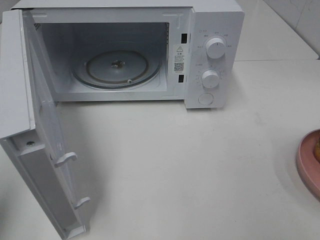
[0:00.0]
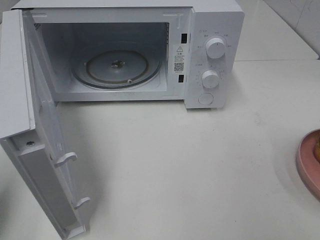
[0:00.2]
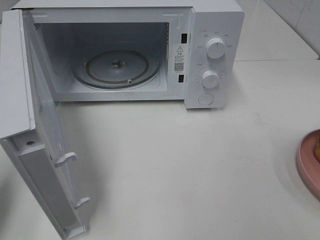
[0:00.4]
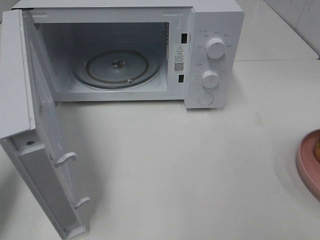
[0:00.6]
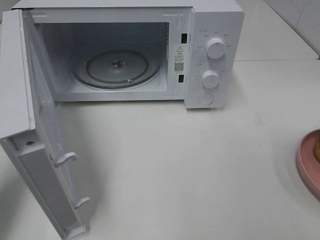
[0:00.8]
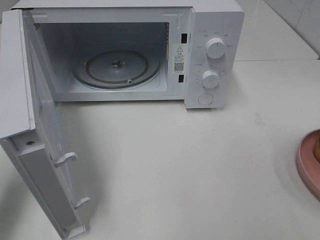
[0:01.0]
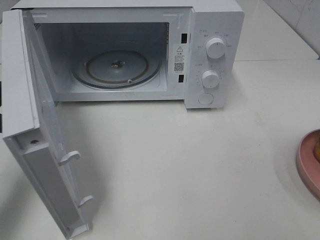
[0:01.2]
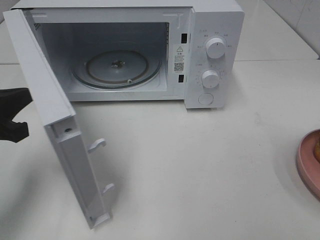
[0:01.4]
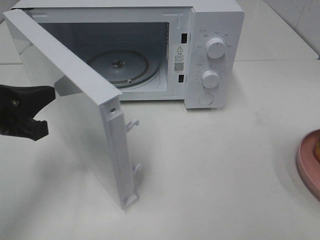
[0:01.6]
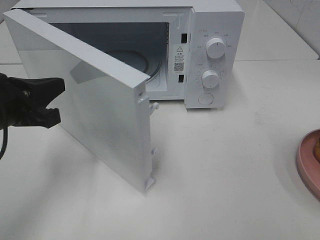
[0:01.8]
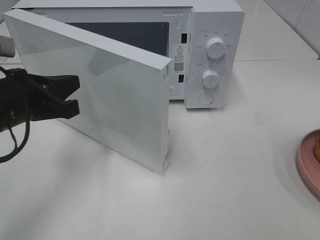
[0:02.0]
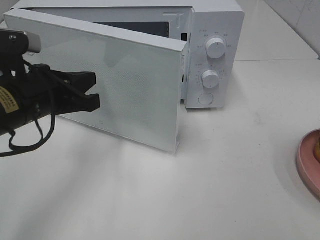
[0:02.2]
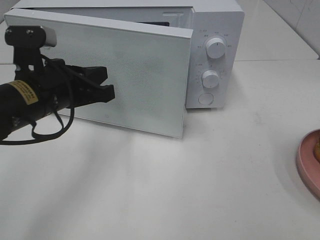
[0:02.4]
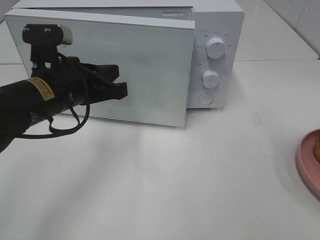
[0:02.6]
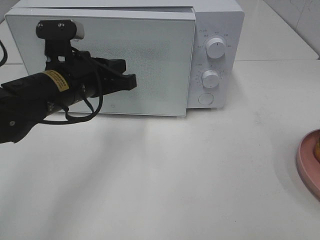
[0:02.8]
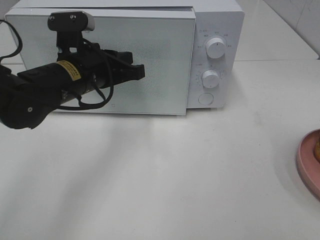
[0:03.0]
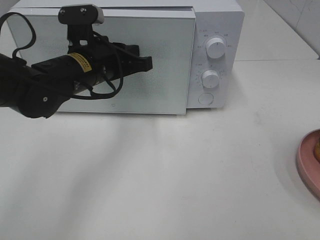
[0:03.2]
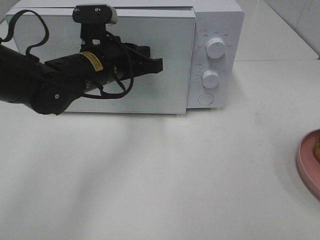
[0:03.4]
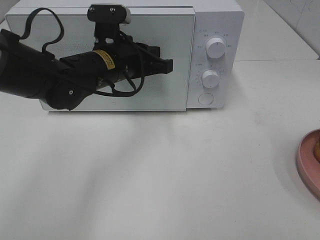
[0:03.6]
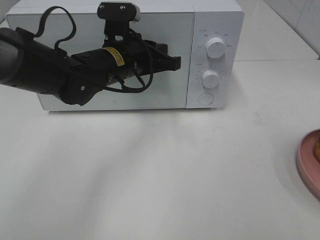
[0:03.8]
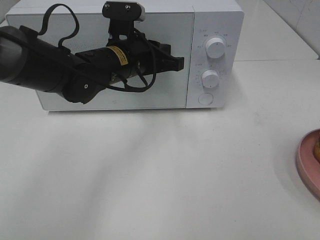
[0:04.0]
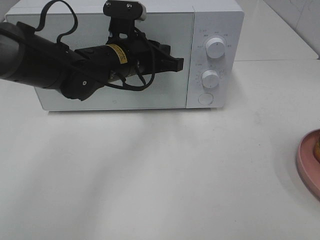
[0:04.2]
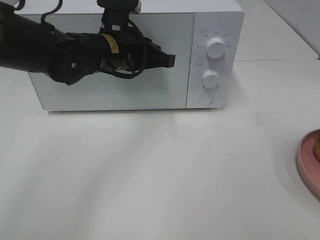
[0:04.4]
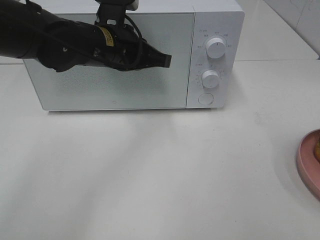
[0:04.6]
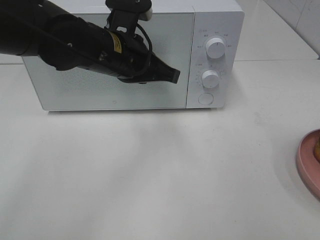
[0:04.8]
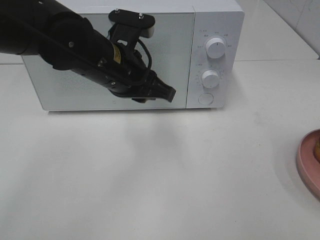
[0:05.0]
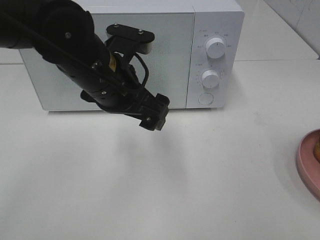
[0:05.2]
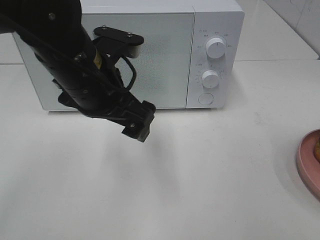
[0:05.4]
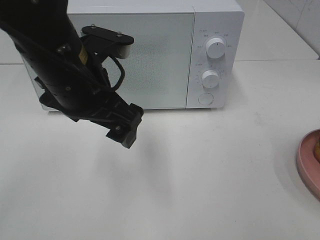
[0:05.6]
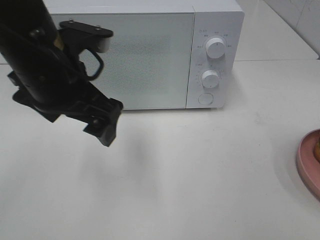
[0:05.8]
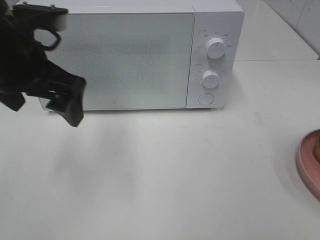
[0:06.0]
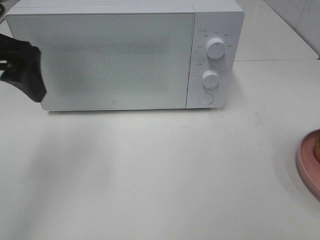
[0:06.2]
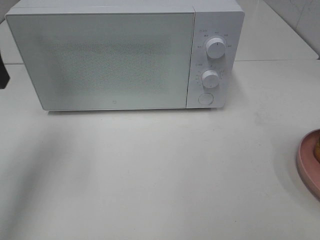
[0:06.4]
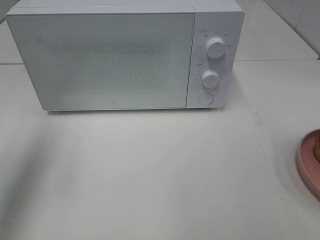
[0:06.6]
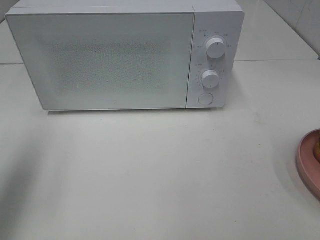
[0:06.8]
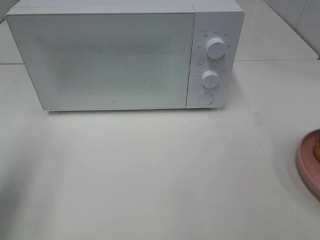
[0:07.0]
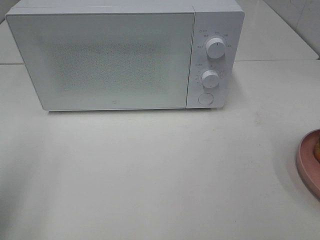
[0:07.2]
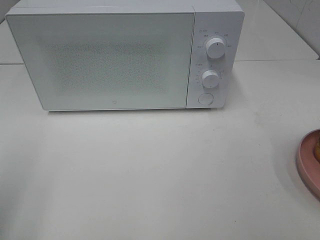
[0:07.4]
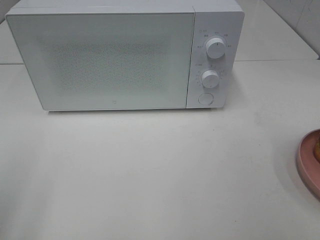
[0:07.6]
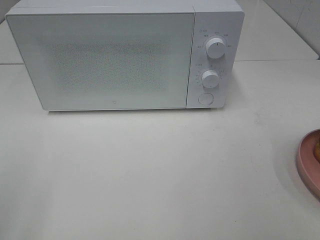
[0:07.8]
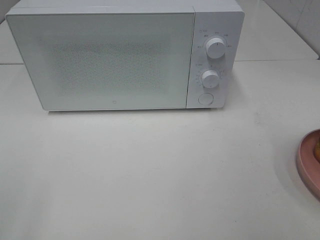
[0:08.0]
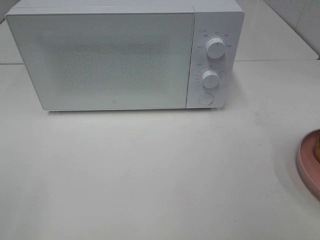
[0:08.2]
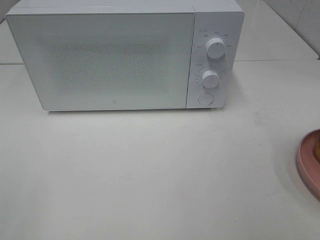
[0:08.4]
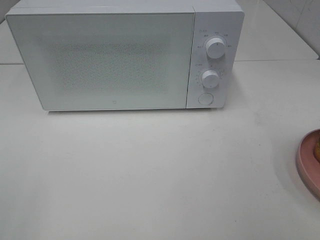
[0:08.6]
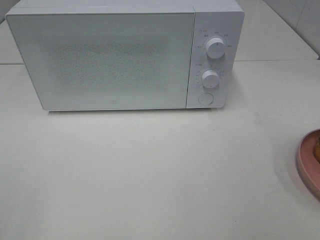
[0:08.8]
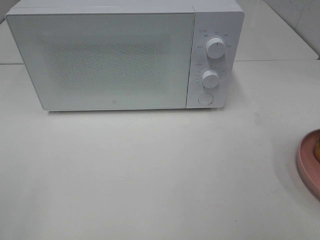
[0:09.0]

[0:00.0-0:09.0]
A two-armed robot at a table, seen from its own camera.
Task of the whole recording: Heat the burger.
Step, 0:00.0 to 0:04.4: Left hand: close the microwave door.
0:00.0 to 0:01.6: The left gripper shifts some 15 cm forward, downward and to the right.
0:01.6 to 0:03.0: The left gripper goes roughly 15 cm to the right and forward.
0:03.0 to 0:04.4: The left gripper ends up roughly 5 cm from where it was.
0:04.4 to 0:06.0: The left gripper goes some 15 cm to the left, backward and upward, and opens.
0:06.0 to 0:07.6: The left gripper travels backward and to the left by approximately 25 cm.

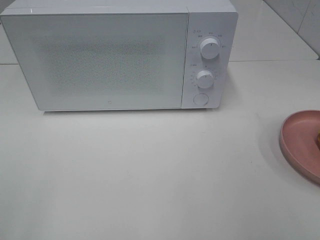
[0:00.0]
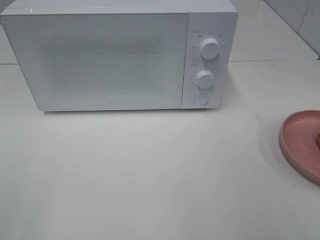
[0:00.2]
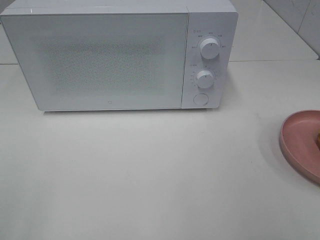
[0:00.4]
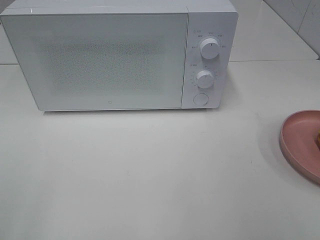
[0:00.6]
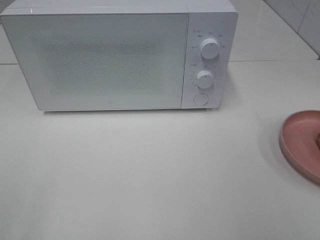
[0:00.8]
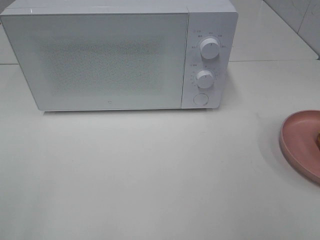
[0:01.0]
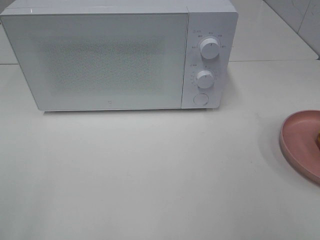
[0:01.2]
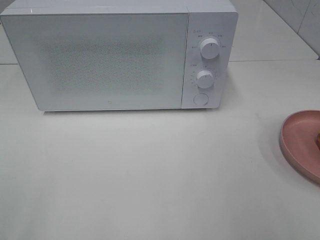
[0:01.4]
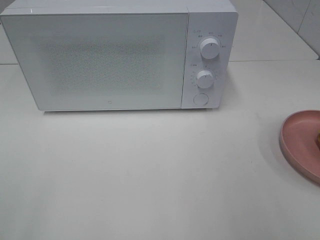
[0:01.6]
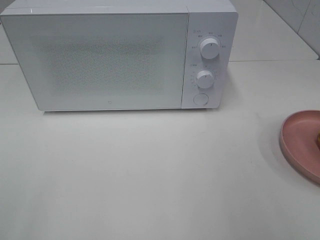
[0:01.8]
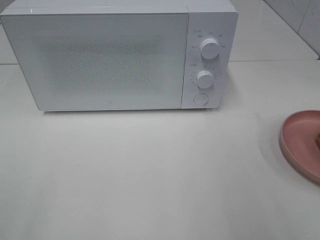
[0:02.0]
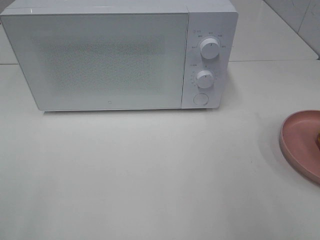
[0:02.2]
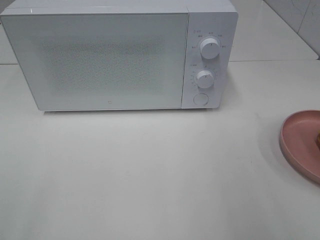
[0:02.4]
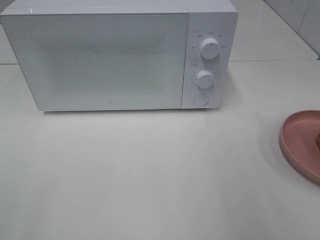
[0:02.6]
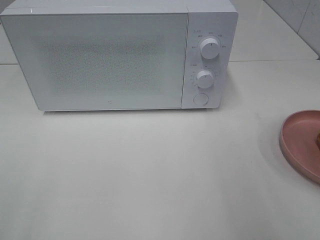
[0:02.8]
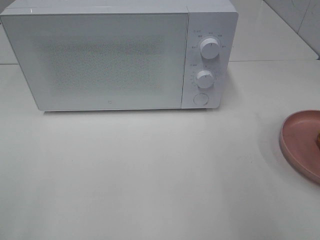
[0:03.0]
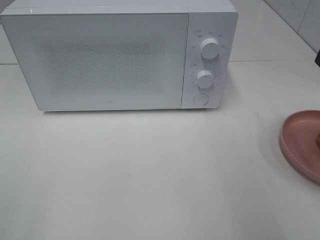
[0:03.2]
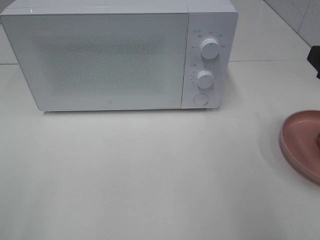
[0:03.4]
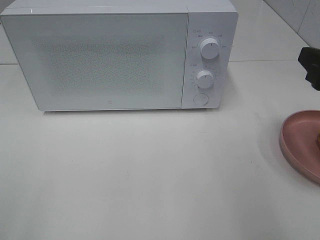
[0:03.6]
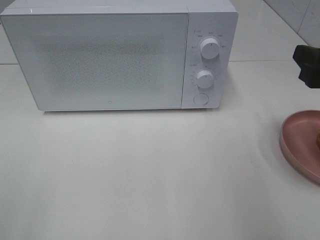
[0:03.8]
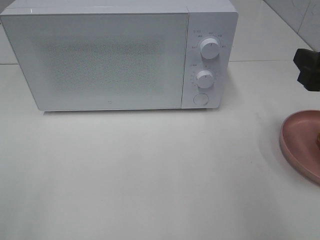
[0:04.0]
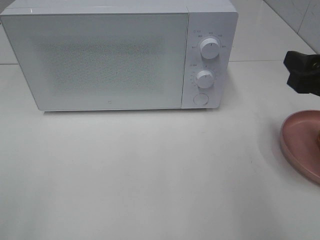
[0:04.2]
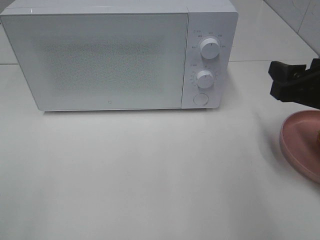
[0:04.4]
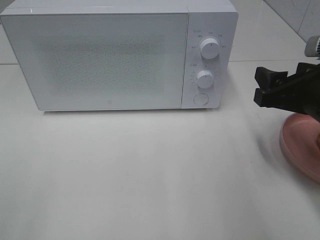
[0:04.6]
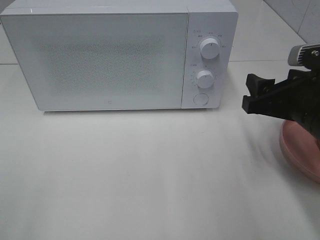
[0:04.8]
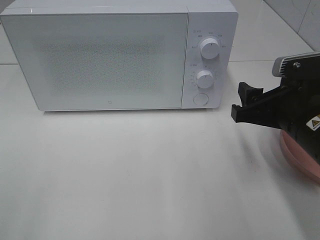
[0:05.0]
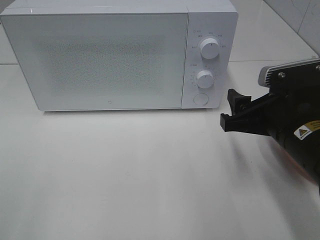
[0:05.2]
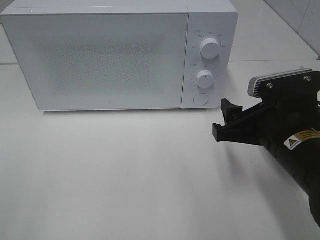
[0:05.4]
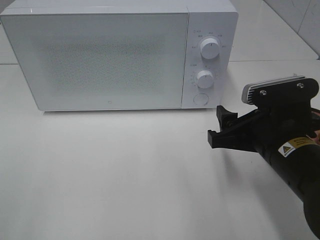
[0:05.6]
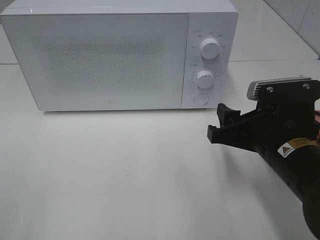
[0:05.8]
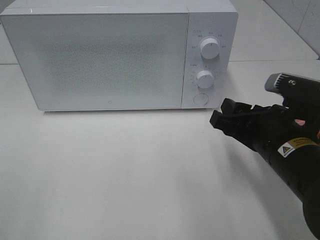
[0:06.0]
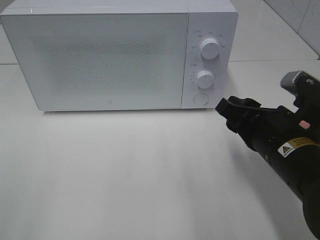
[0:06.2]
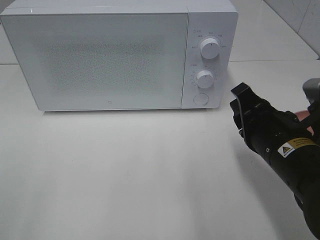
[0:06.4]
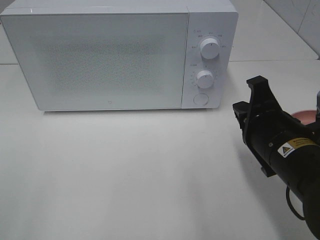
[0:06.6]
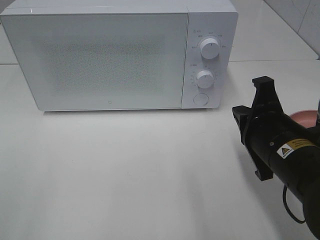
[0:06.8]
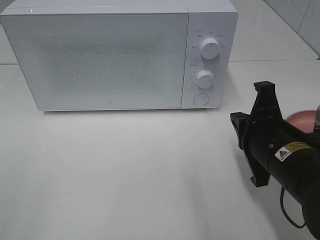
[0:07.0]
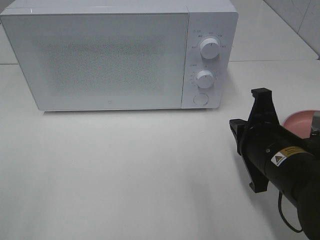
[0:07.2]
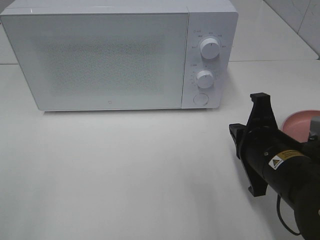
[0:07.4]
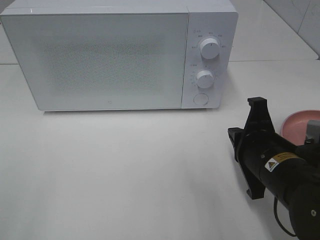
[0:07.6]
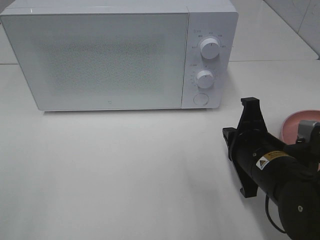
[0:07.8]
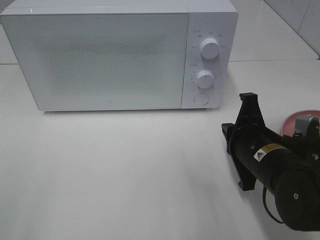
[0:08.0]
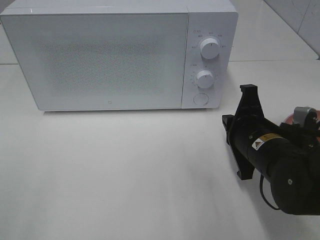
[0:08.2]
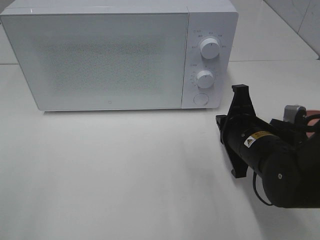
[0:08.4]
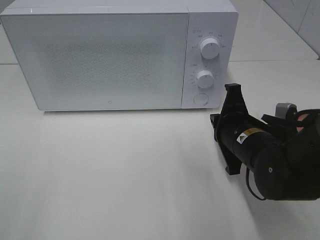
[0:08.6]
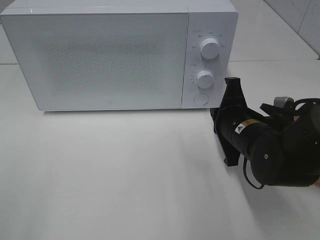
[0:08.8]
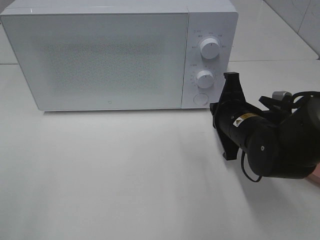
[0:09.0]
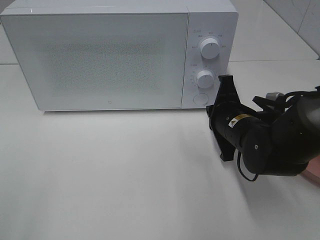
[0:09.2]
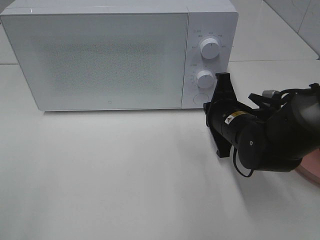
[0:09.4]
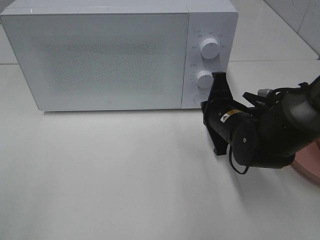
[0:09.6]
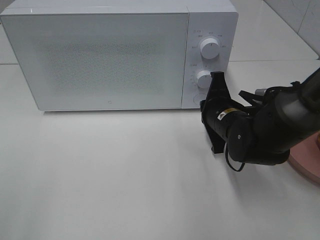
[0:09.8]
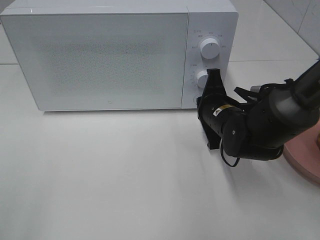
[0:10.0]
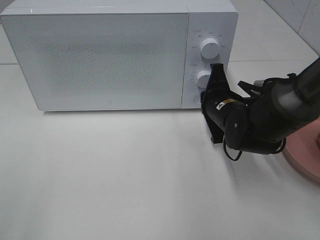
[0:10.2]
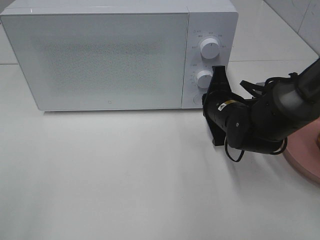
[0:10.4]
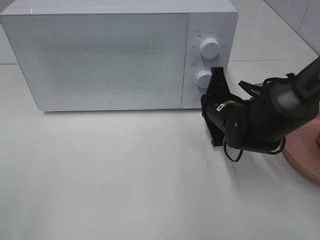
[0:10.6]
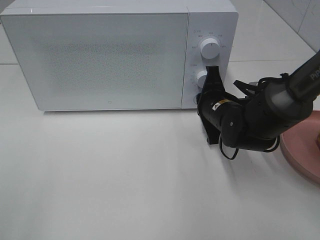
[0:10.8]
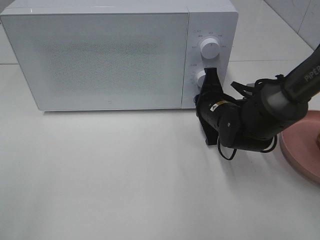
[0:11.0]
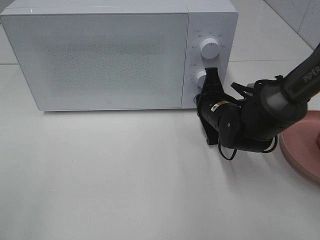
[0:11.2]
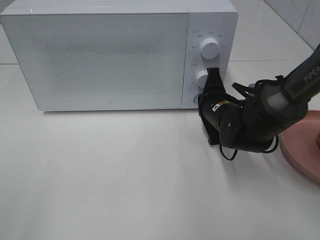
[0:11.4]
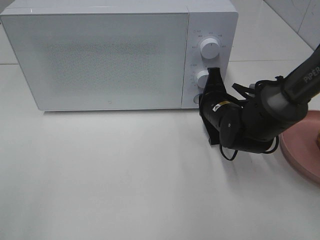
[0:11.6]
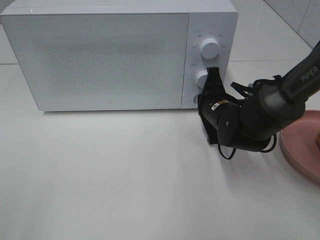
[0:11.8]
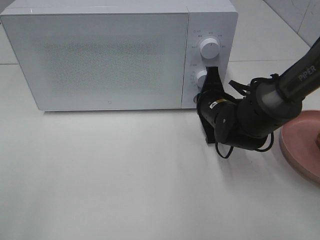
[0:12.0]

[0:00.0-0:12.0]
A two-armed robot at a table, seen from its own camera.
Task of the whole recording: Heat the burger.
0:03.0 to 0:04.4: The right gripper travels downward and forward by roughly 10 cm.
0:04.4 to 0:06.0: The right gripper moves to the left and downward, approximately 10 cm.
0:06.0 to 0:07.6: The right gripper closes.
0:07.6 to 0:09.0: The right gripper moves forward, some 10 cm.
0:09.0 to 0:10.4: The right gripper is displaced forward by about 5 cm.
0:10.4 to 0:12.0: There are only small adjustments of the grippers.

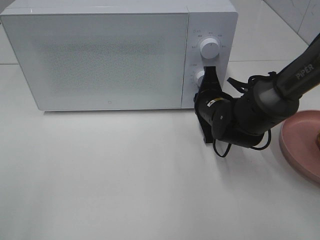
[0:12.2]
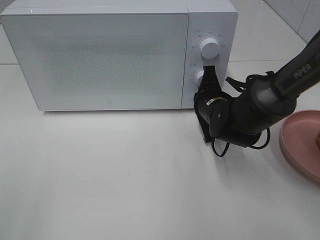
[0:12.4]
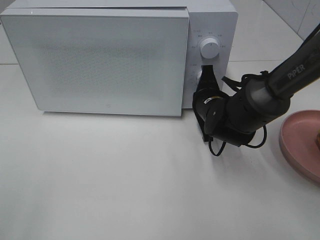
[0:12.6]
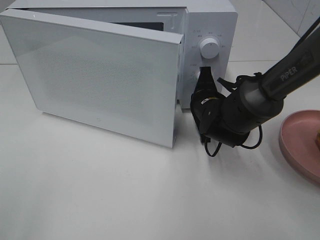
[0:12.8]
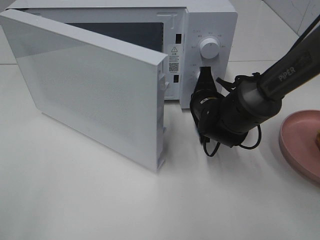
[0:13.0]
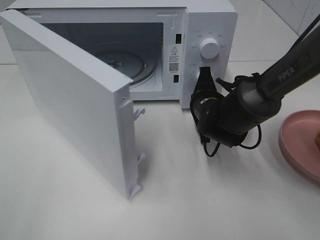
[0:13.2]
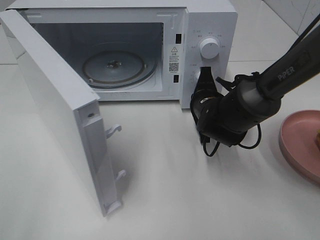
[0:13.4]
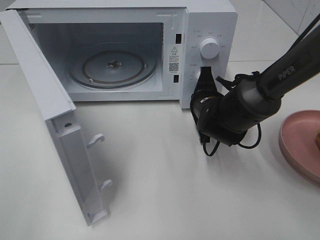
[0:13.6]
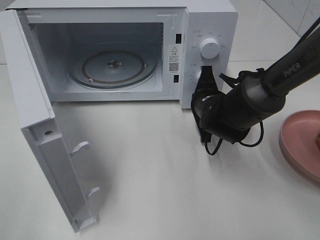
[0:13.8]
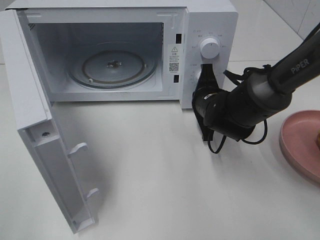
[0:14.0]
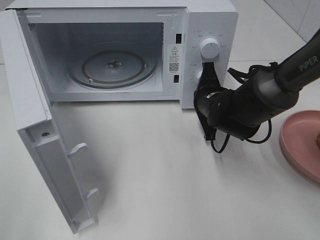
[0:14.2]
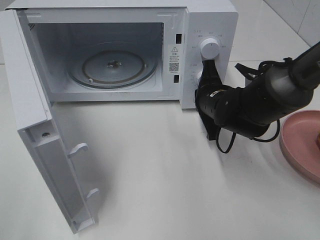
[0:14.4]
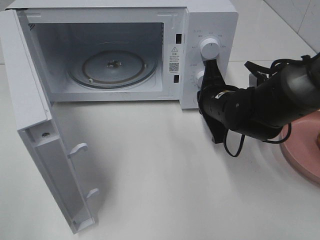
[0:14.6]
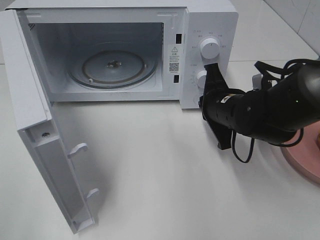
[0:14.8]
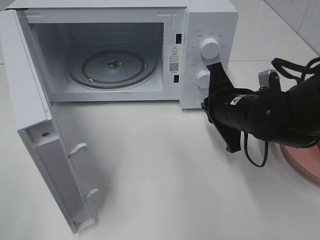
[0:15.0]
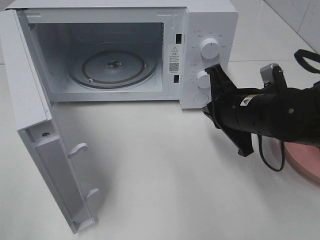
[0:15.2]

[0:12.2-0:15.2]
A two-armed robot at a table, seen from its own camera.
Task of the whole recording: Heat the burger.
Step, 0:12.2 to 0:14.4: Right hand: press the switch.
0:13.8 to 0:15.2: The right gripper shifts some 10 cm backward and upward.
